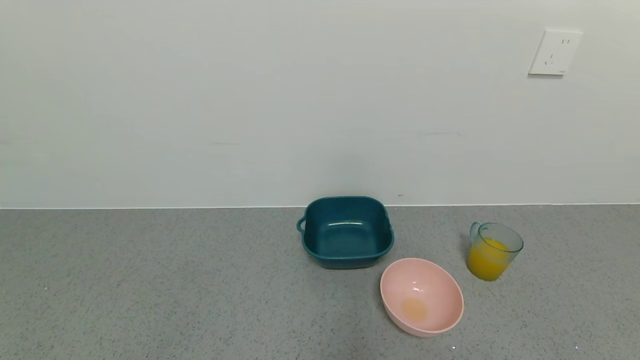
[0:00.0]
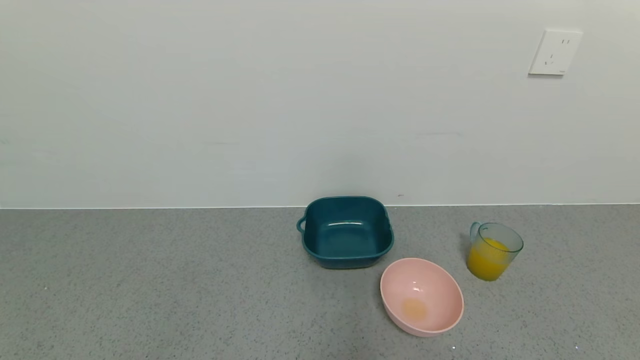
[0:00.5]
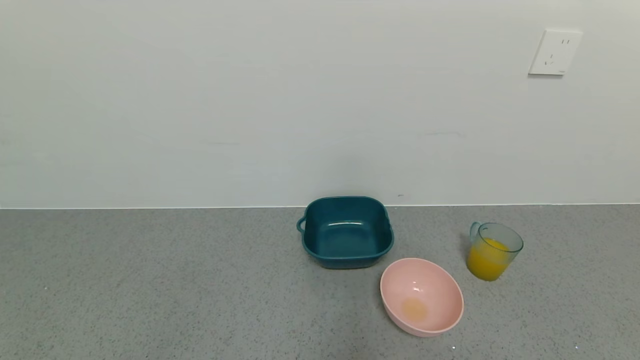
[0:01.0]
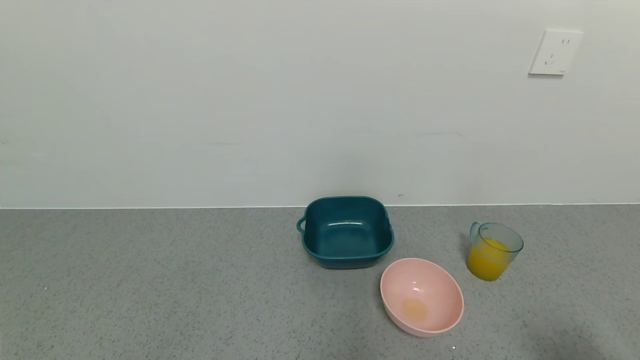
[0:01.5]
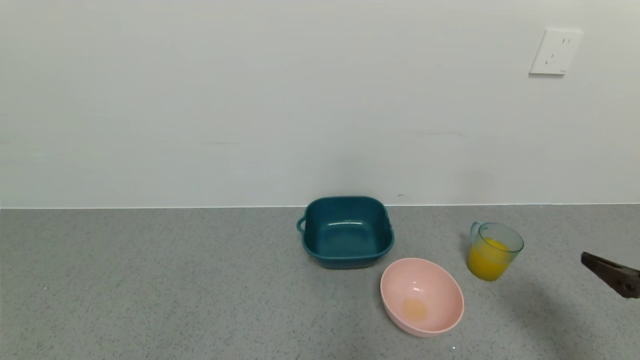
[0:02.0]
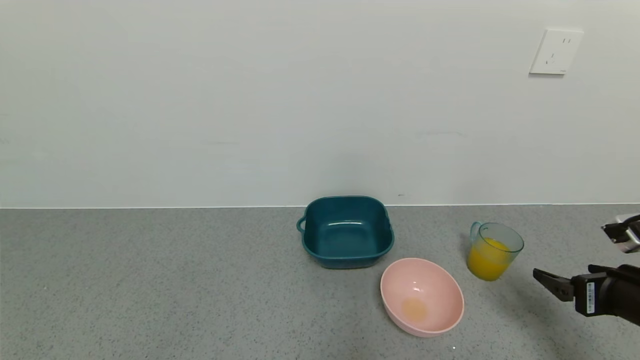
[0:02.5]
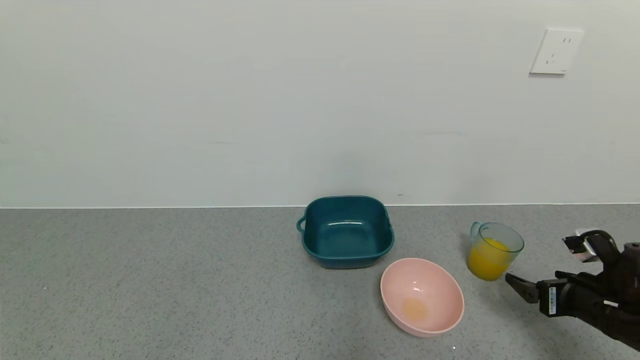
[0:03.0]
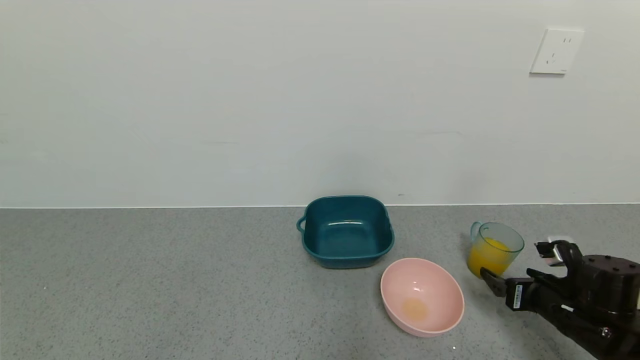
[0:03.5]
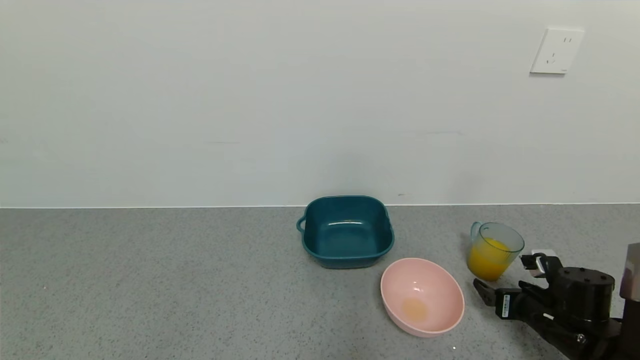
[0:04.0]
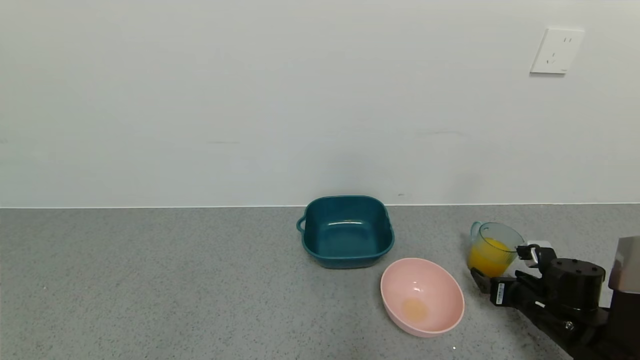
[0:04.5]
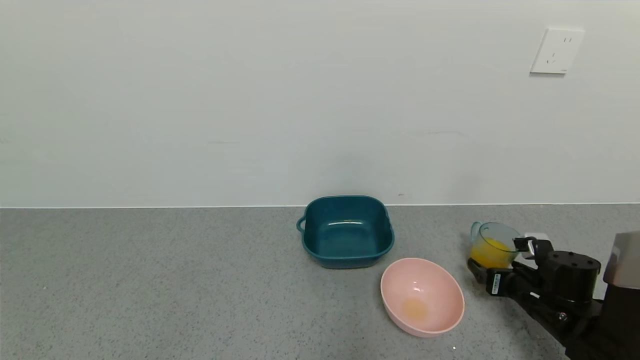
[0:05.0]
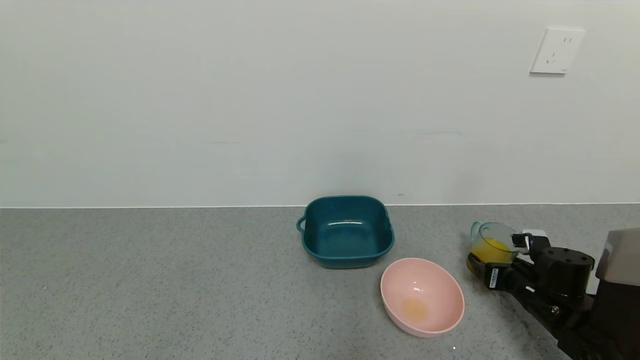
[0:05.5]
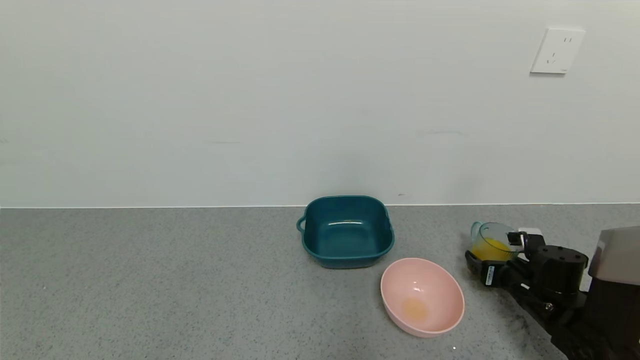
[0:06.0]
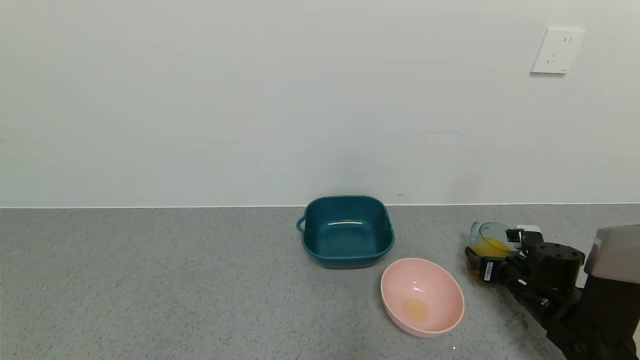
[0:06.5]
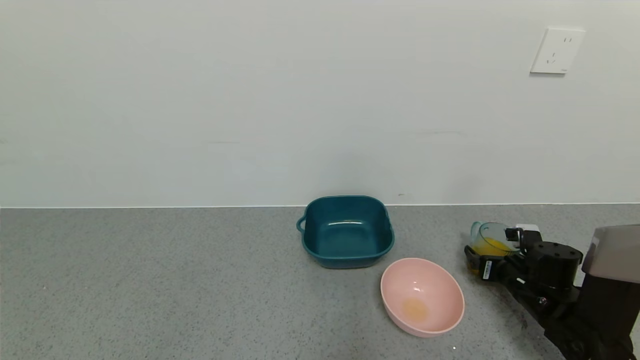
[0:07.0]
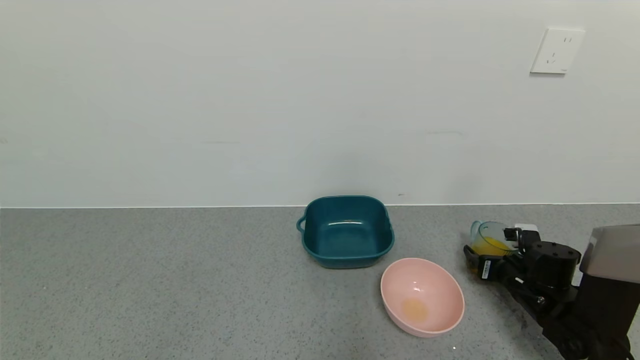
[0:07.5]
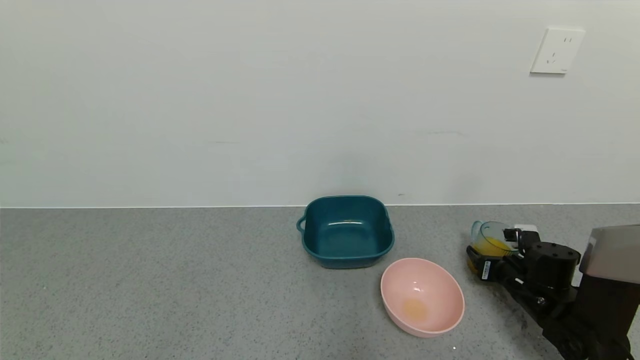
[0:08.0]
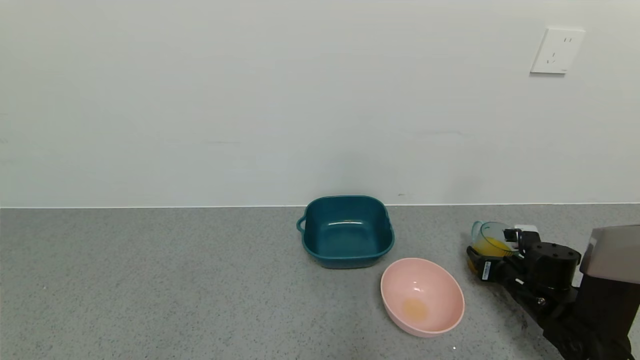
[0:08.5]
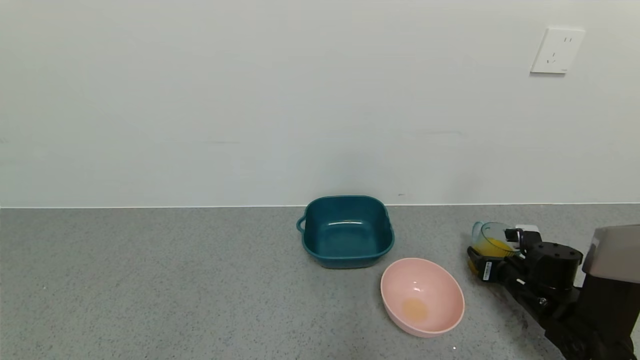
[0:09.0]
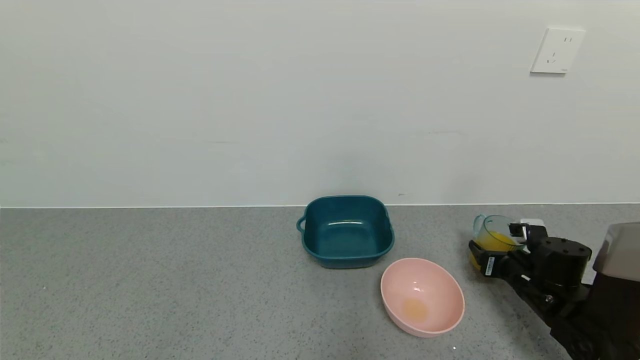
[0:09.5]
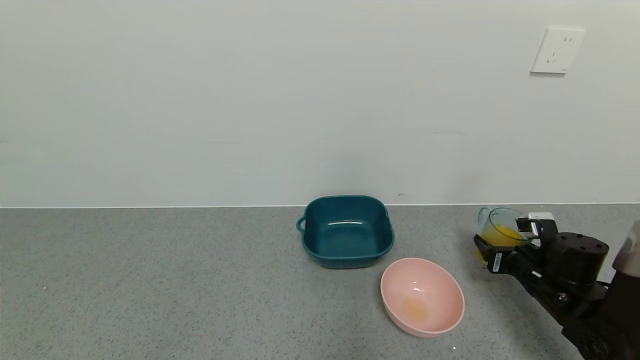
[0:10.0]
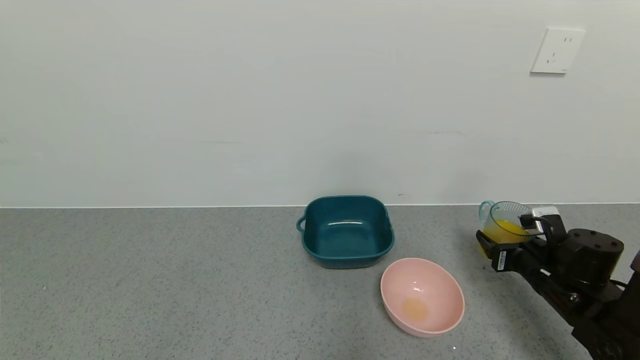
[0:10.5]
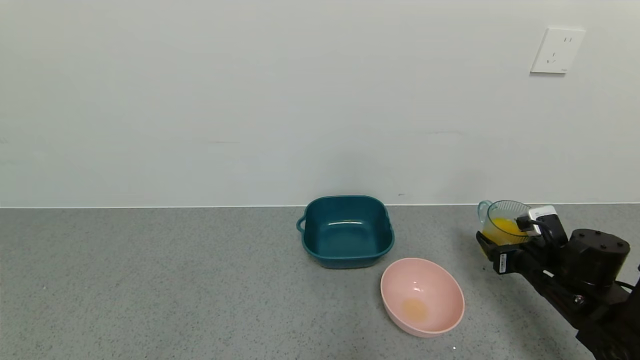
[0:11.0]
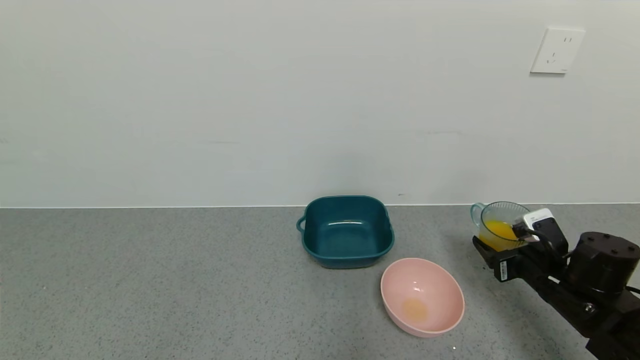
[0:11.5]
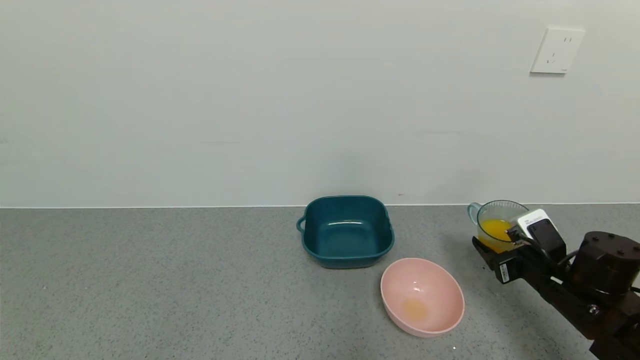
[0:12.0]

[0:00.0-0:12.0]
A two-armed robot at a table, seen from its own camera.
Task of the whole recording: use a gripper to pick up the cup and pour the liquid into a bowl or tray.
0:00.0 to 0:02.0: The right gripper moves forward and upward, about 20 cm.
0:02.0 to 0:04.0: The right gripper moves downward and forward, about 20 cm.
0:04.0 to 0:06.0: The right gripper moves forward, some 5 cm.
0:06.0 to 0:08.0: The right gripper closes its fingers.
0:08.0 to 0:10.0: The grippers move only a little.
0:10.0 to 0:12.0: The right gripper moves about 5 cm.

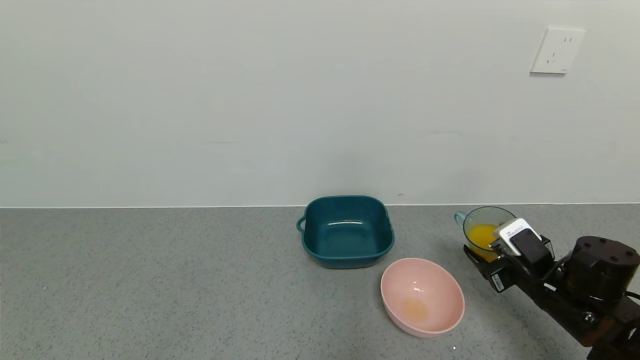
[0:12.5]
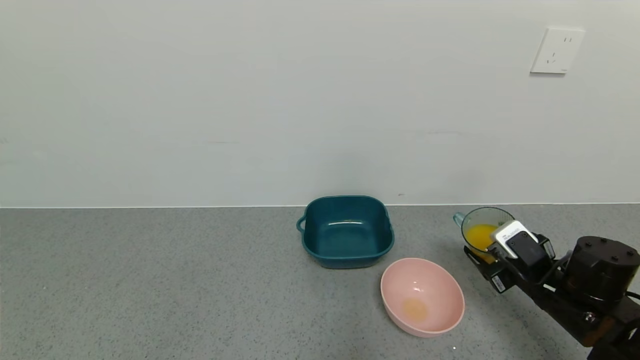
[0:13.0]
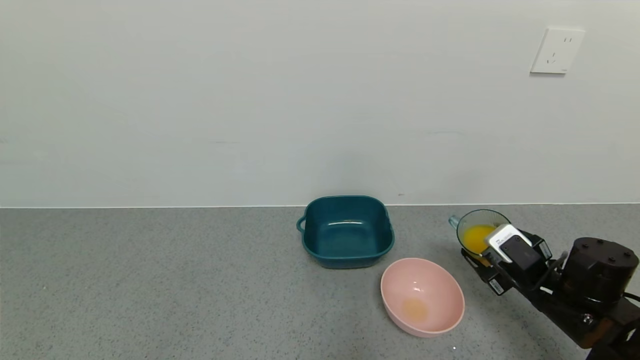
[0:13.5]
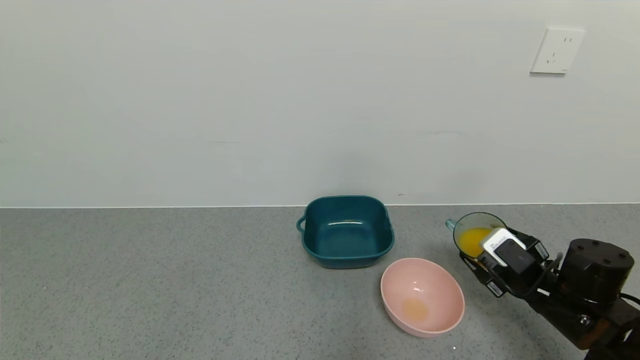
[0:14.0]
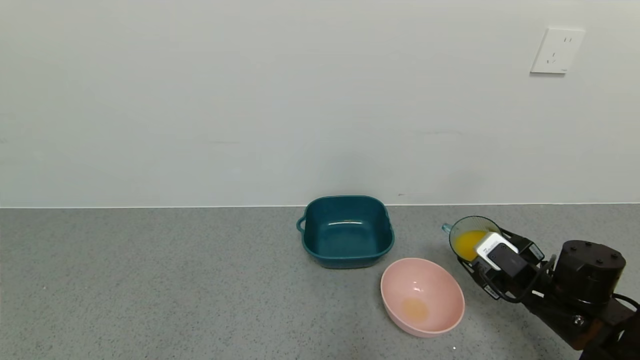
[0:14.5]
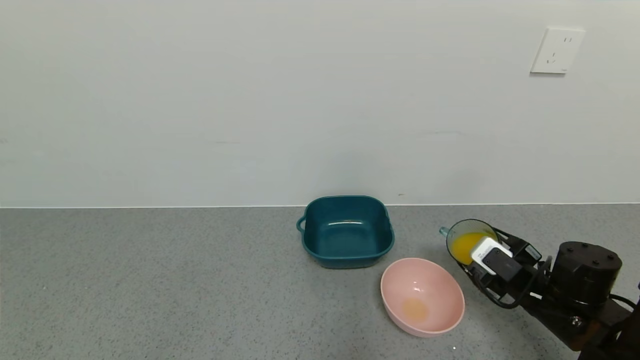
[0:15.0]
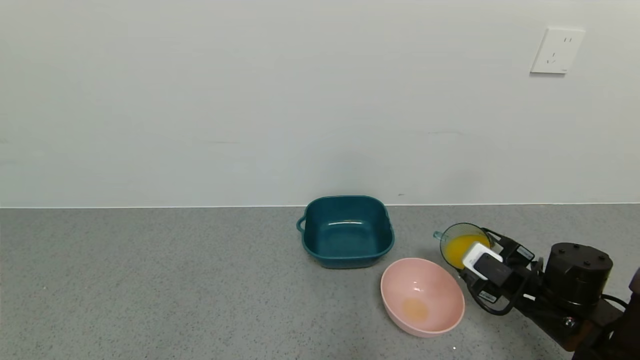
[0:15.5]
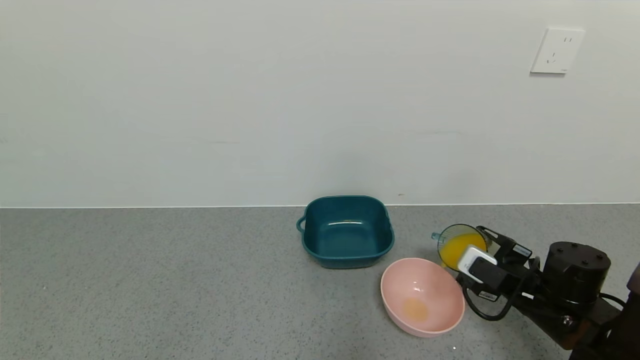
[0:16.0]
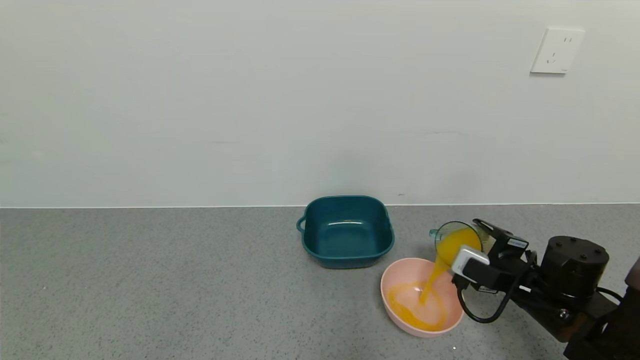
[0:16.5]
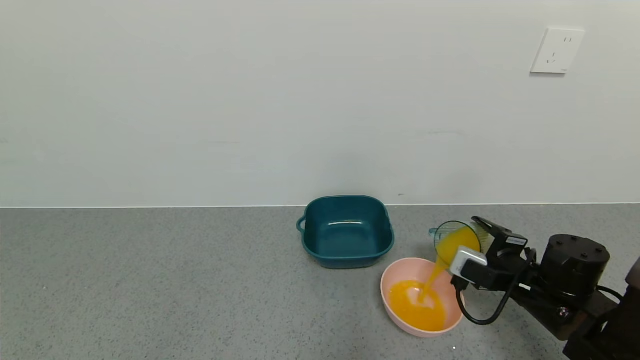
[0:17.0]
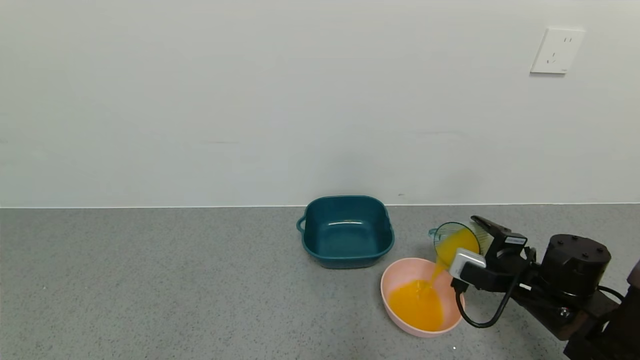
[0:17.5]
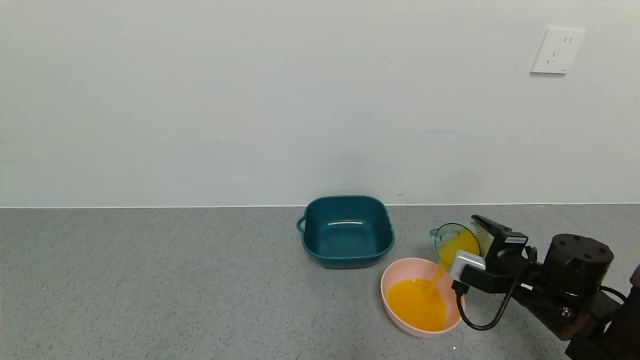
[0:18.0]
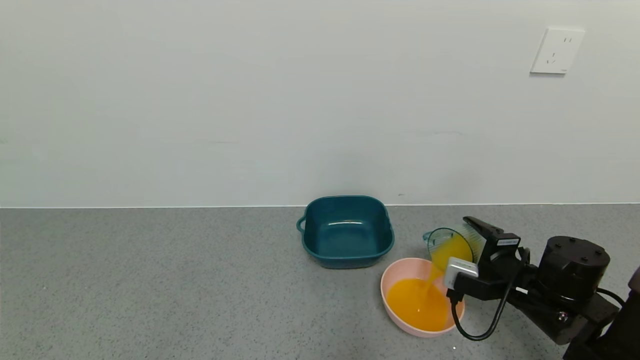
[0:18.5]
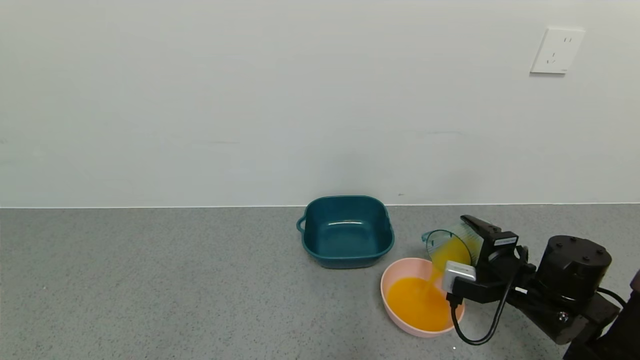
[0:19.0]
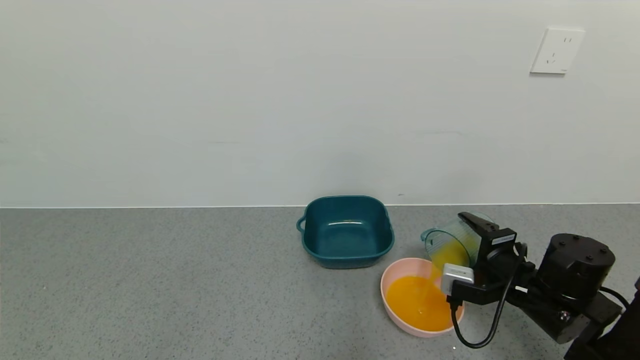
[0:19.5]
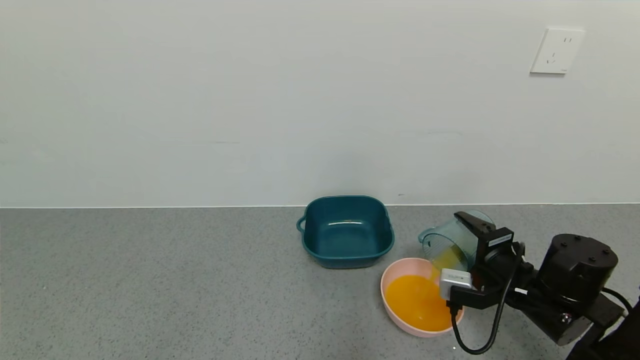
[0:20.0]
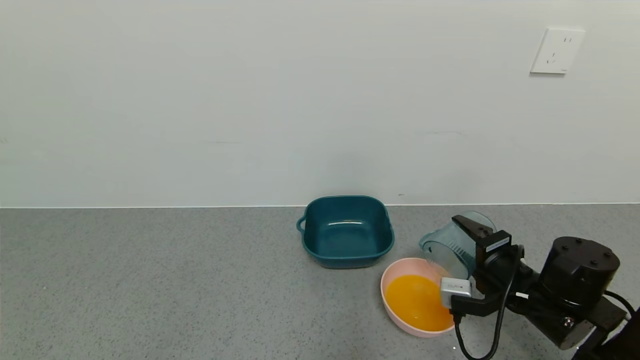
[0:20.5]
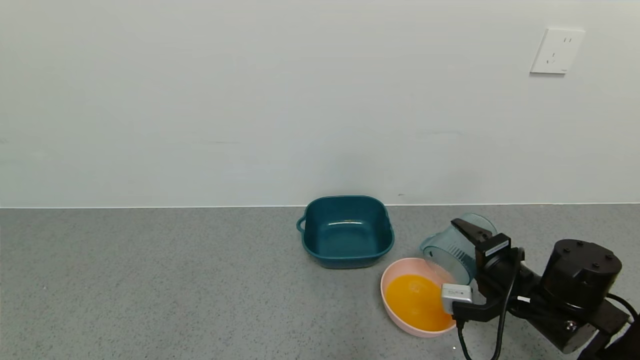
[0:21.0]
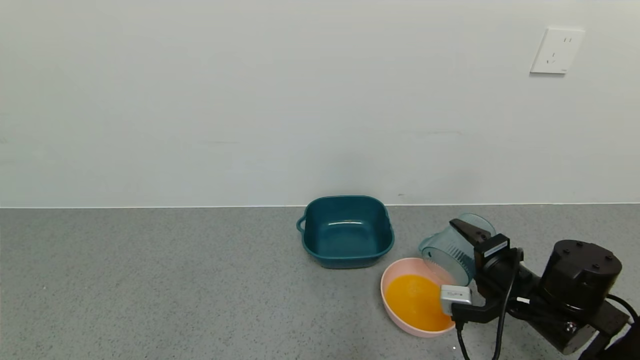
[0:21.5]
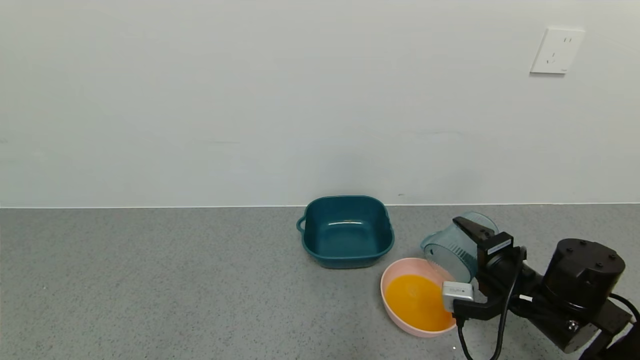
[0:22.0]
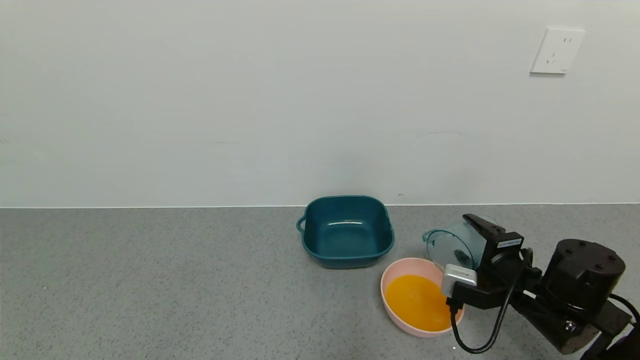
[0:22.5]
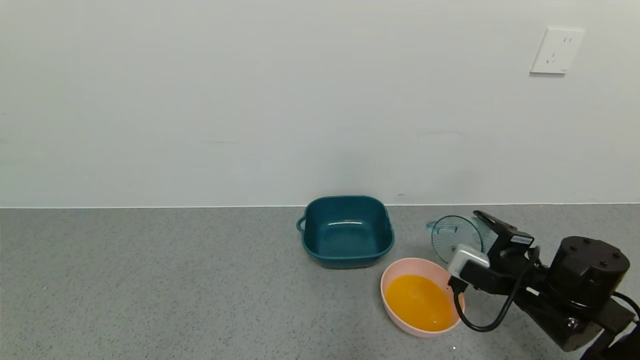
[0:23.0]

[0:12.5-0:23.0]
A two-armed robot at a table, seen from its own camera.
Task of the whole recording: use a gripper to pick up the cup and pour the liquid into a bowl or tray.
Step, 0:12.5 to 0:14.5: Pick up blue cup filled with orange juice with right gripper.
Step, 0:15.0 to 0:22.5: Pour the orange juice into the pink bowl with right gripper.
0:12.5 to 0:14.5: The grippers make only small movements.
0:19.0 to 0:21.0: The grippers make only small movements.
